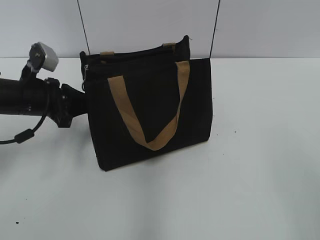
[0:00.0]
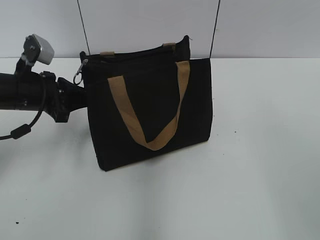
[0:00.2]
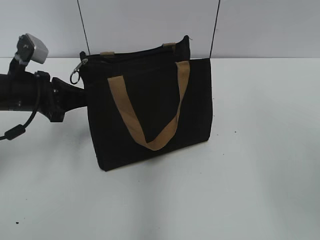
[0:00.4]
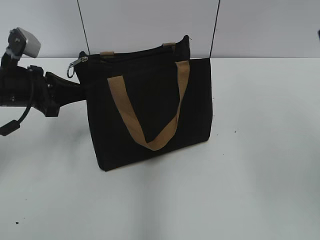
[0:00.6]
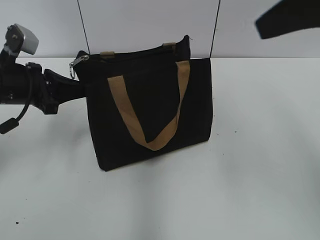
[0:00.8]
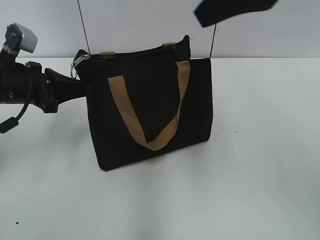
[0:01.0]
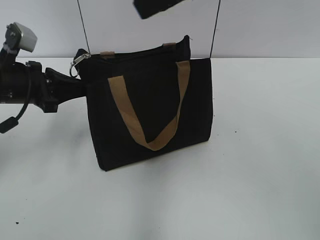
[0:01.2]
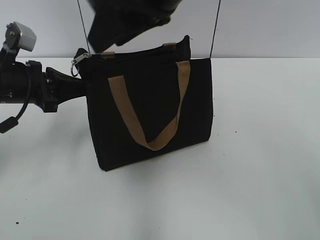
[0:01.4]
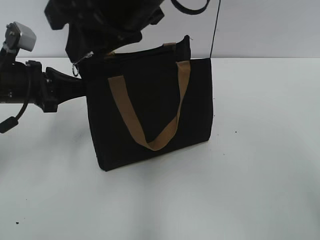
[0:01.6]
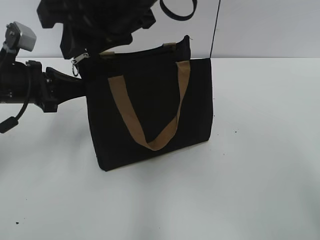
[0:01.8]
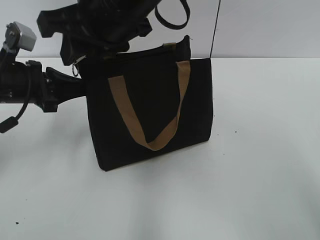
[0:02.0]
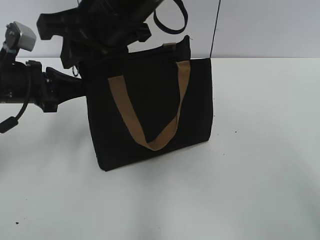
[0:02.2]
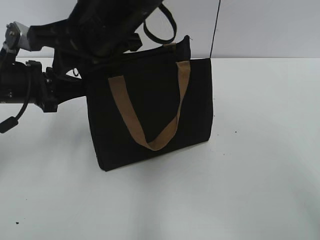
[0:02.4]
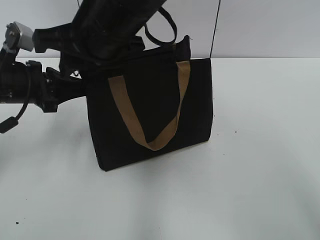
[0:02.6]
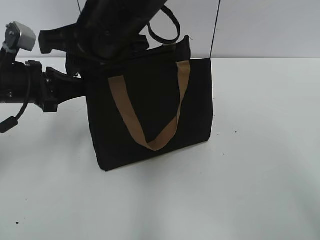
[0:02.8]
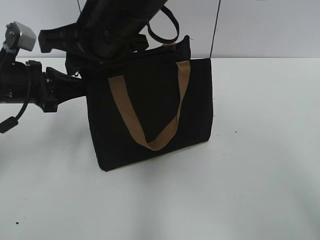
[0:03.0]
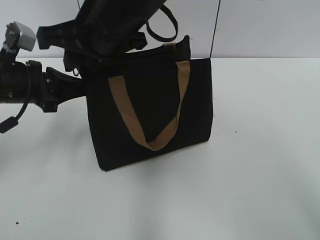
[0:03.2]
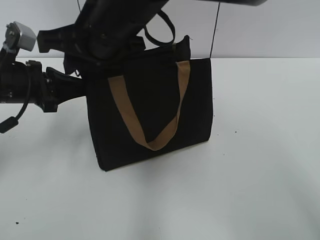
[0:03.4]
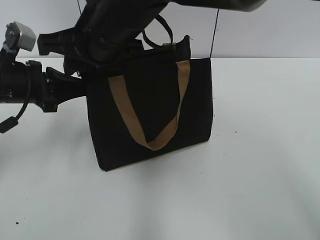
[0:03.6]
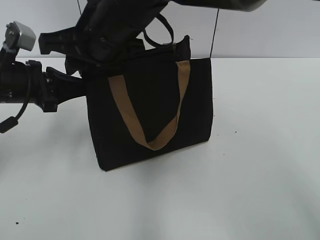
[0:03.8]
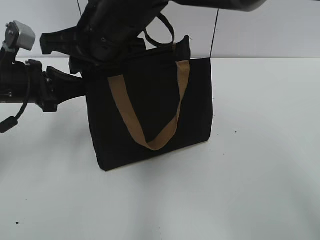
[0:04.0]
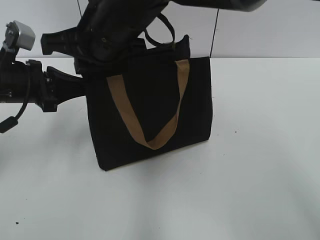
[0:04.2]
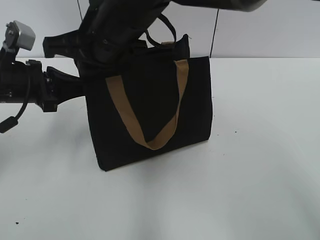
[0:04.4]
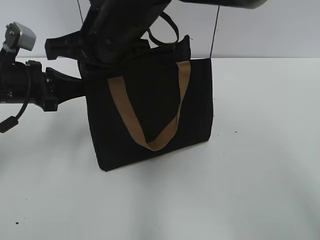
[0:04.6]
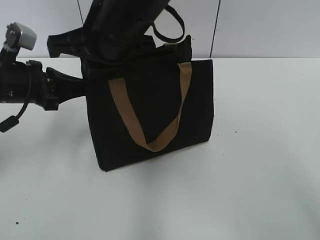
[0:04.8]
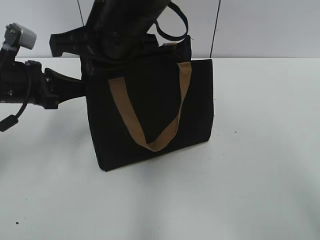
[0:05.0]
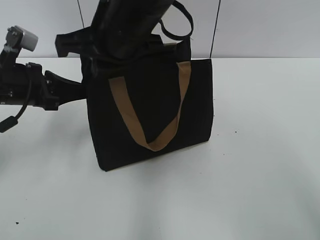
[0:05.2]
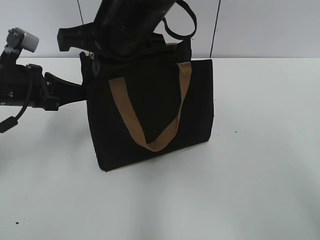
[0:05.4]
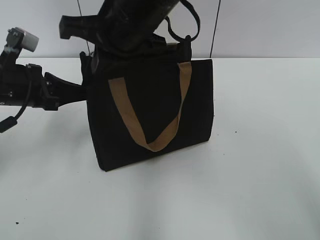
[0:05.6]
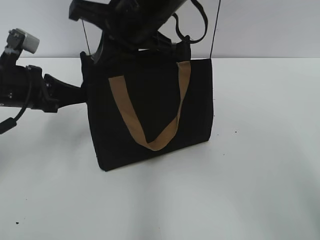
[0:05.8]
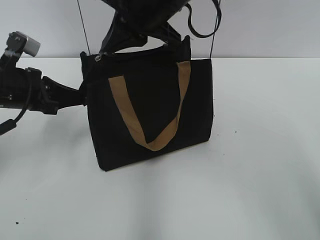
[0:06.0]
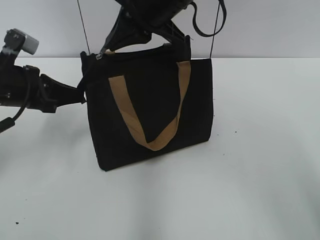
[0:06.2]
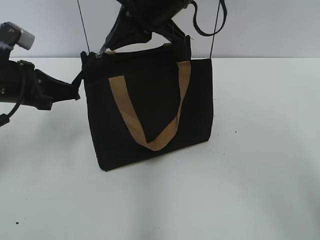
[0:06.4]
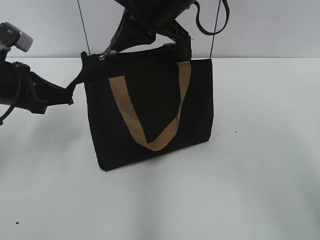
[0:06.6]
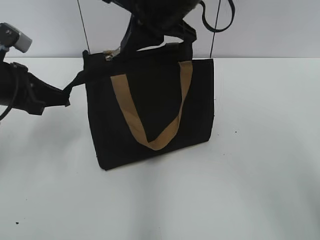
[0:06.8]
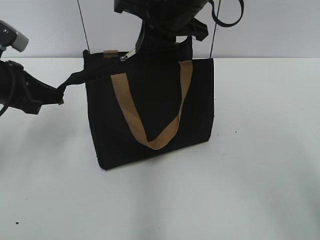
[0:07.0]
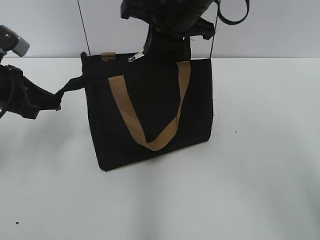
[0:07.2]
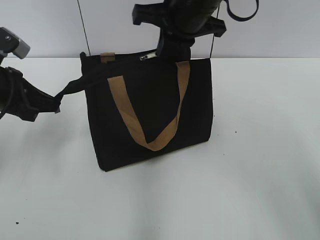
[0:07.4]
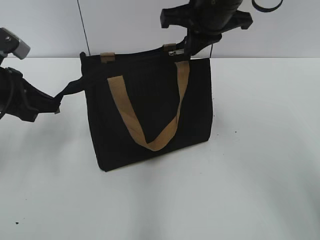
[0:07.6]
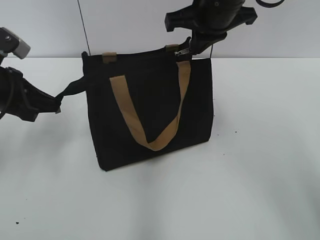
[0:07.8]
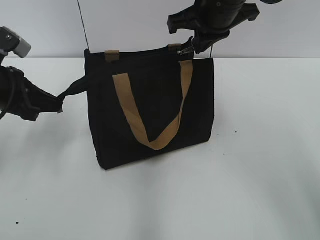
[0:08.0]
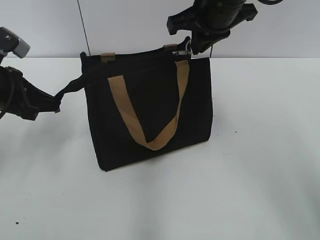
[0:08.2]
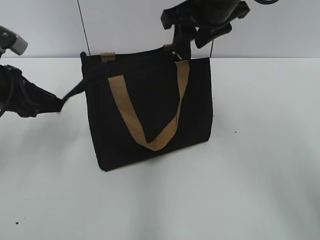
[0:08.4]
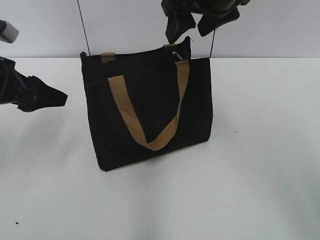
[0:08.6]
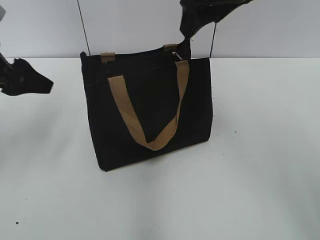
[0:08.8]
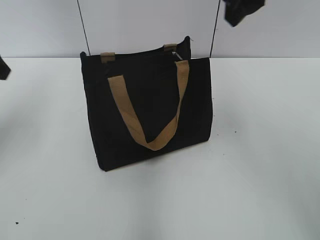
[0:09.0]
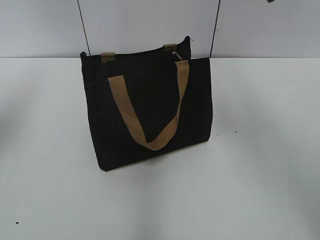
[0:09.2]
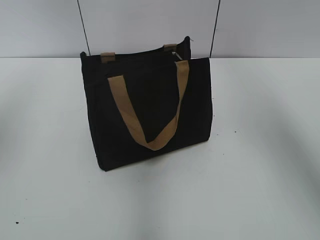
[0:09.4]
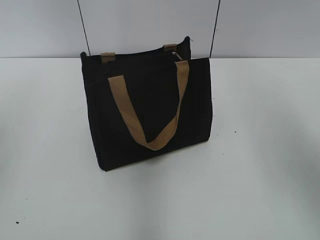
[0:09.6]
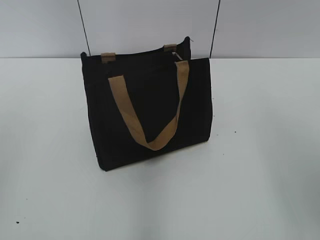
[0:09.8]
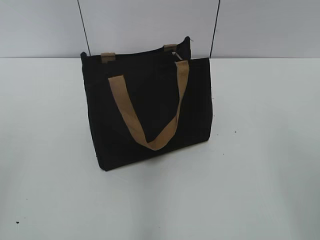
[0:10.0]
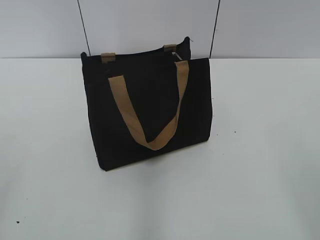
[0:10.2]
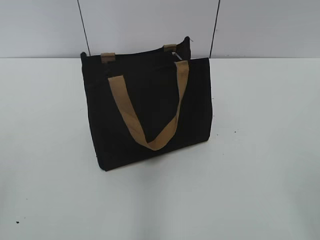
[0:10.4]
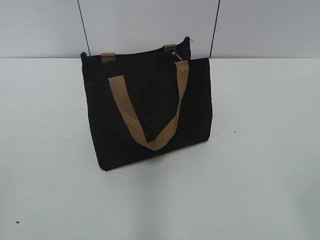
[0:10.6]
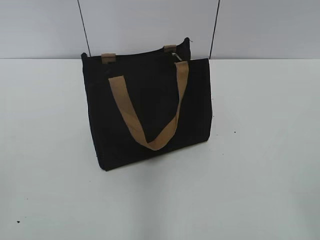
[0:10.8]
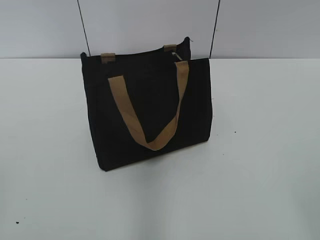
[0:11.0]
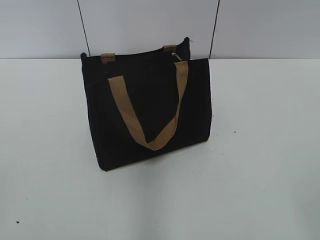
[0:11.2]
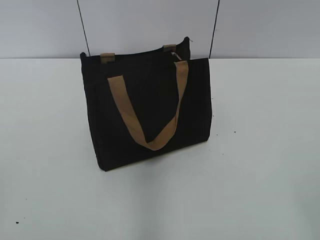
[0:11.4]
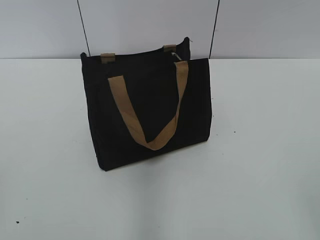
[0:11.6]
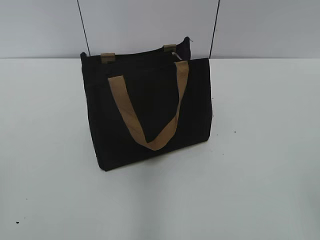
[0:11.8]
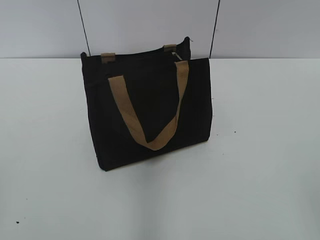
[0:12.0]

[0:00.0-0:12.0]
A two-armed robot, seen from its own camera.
Step, 0:00.0 to 0:08.2: Zip up the bag with your right hand.
0:00.0 to 0:01.6: The right gripper travels to the left and forward by approximately 40 cm.
0:01.6 to 0:03.0: The right gripper moves downward, about 5 cm.
0:03.0 to 0:04.4: The right gripper closes its fingers.
0:04.4 to 0:06.0: The right gripper heads to the right, covering some 5 cm.
0:06.0 to 0:07.6: The right gripper goes some 5 cm to the right.
0:07.6 to 0:09.0: The two grippers go some 10 cm upward. The left gripper opens. The right gripper opens.
0:09.0 to 0:10.4: The left gripper is displaced backward by some 30 cm. Meanwhile the right gripper is displaced backward and to the right by approximately 35 cm.

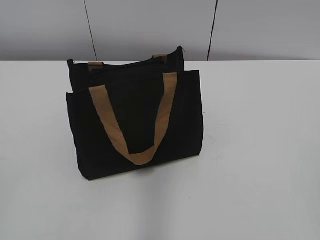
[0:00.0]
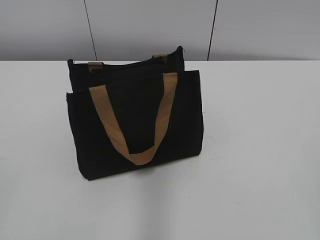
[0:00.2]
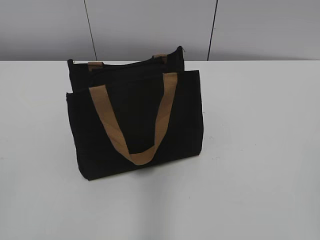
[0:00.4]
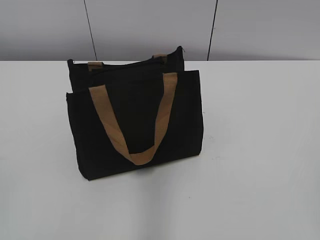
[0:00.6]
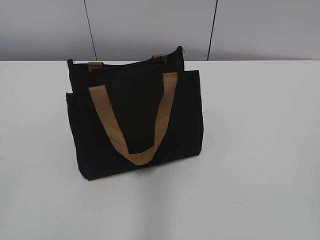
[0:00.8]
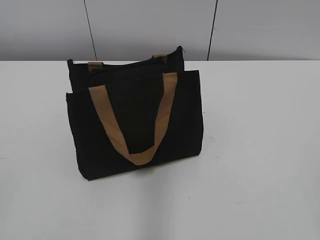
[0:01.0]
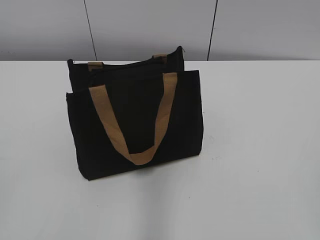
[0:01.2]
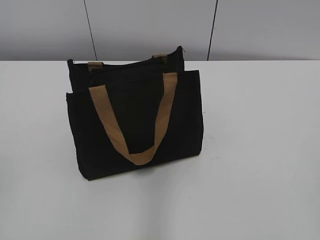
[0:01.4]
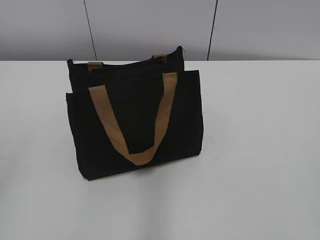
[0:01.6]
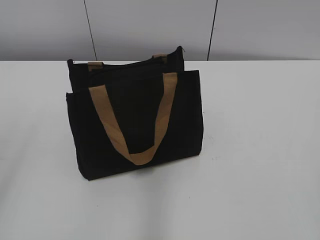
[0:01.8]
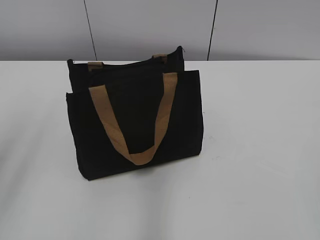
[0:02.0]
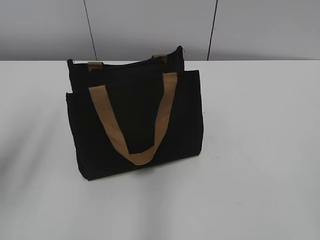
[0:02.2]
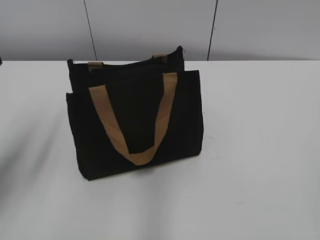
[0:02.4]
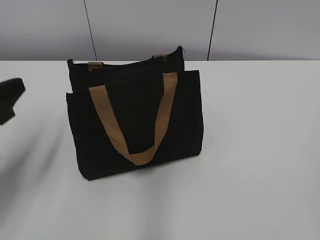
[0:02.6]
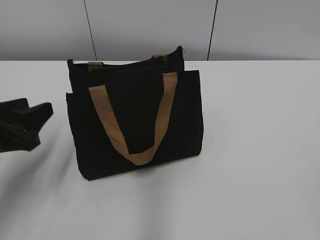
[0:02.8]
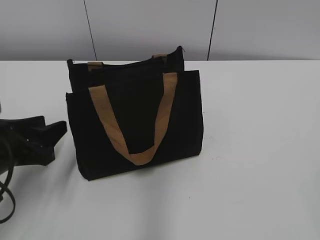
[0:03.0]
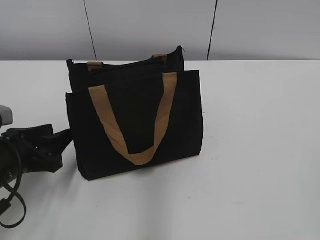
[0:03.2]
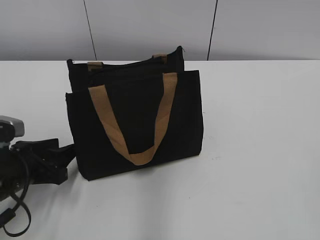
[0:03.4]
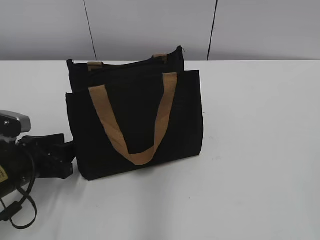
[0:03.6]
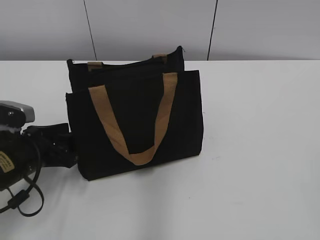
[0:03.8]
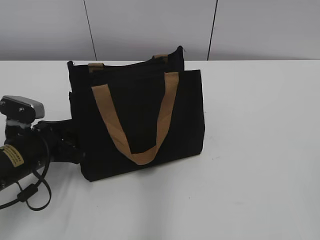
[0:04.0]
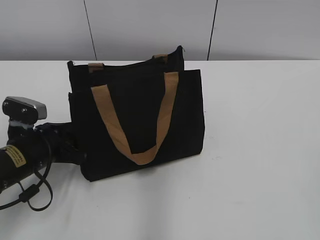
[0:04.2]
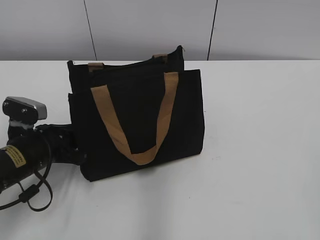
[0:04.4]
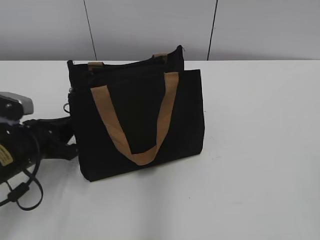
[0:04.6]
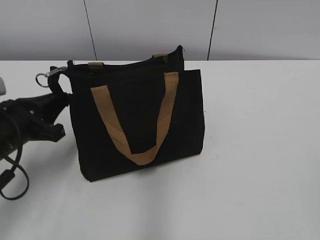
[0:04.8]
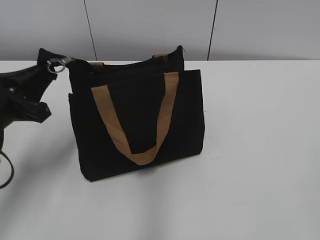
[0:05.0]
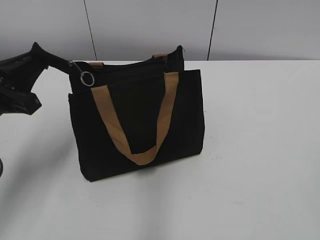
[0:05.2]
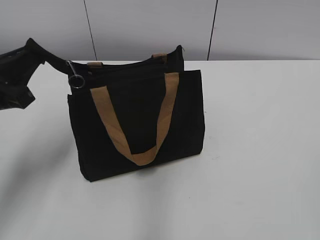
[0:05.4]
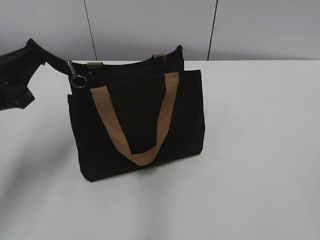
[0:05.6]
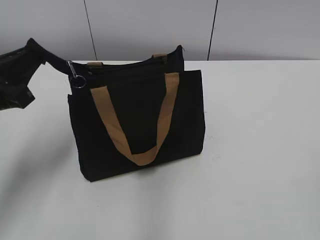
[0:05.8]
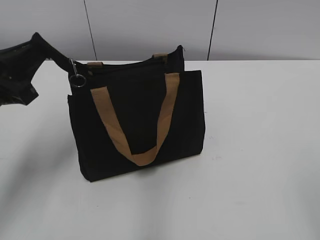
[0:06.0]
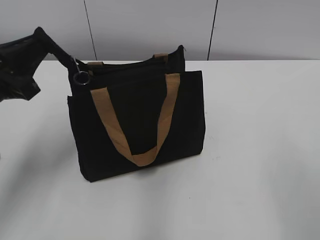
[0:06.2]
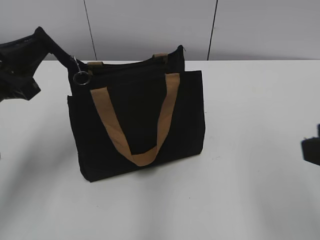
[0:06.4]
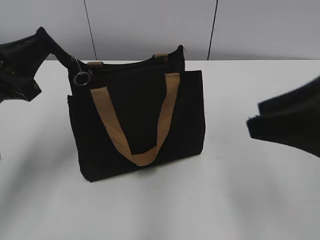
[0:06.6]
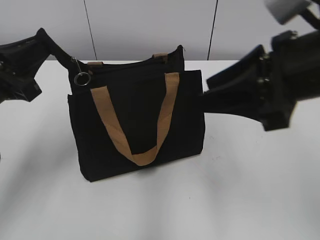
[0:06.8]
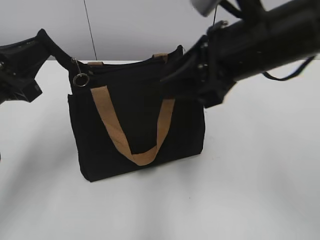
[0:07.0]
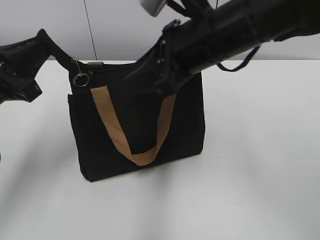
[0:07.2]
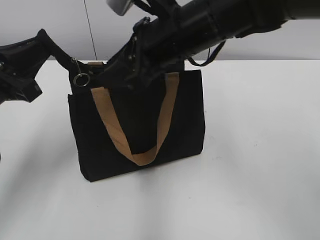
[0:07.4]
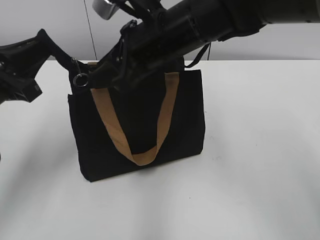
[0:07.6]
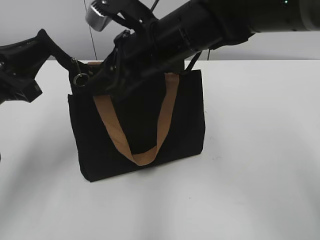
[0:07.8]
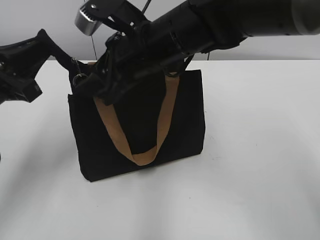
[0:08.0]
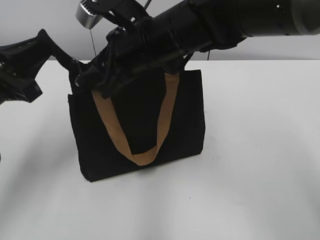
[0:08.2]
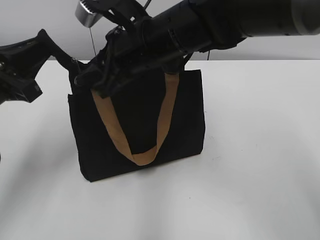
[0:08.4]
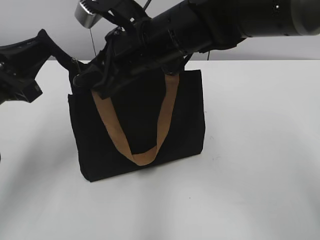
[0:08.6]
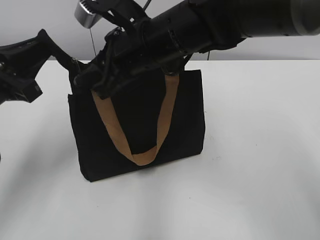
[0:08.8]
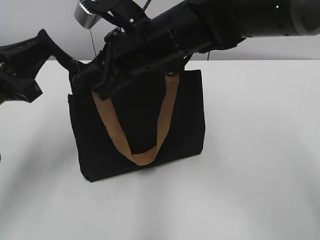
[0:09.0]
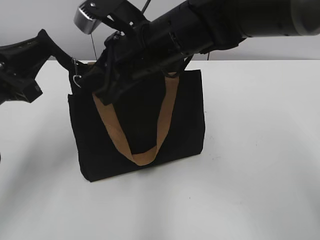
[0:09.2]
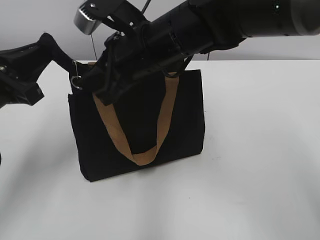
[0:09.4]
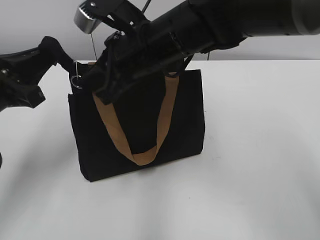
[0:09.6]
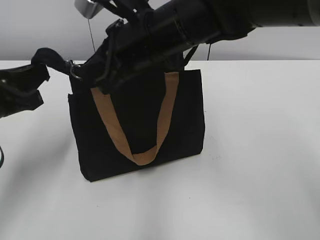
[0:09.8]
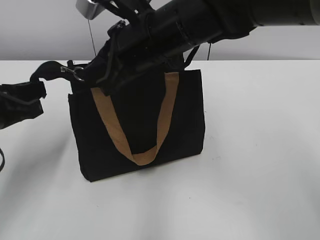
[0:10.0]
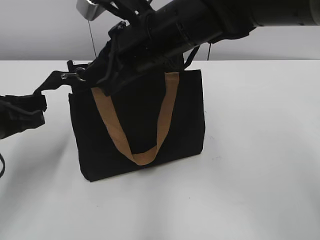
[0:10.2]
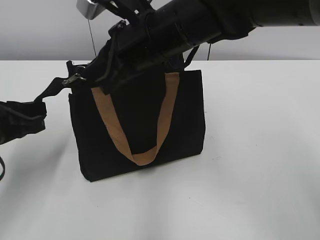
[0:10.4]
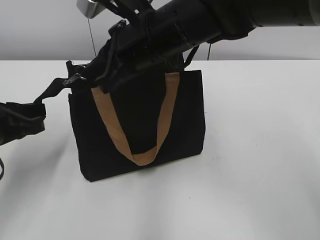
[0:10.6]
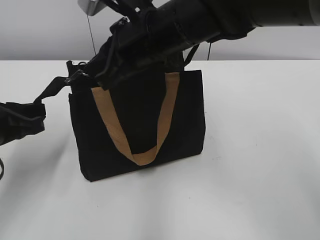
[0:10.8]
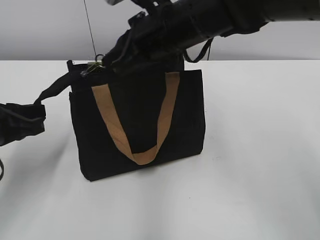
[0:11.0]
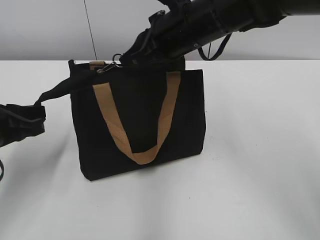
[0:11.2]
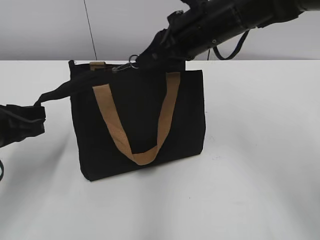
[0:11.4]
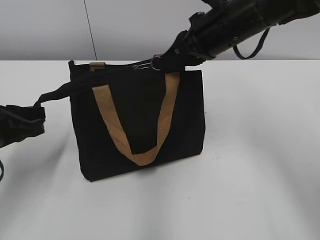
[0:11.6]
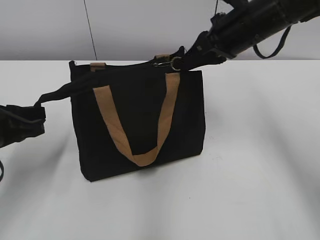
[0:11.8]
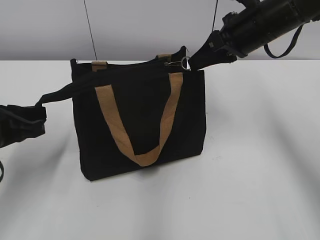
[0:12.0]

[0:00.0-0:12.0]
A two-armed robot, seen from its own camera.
0:01.6 to 0:03.0: The left gripper shifts about 25 cm downward and forward.
0:03.0 to 0:04.4: The left gripper shifts roughly 5 cm downward, and closes.
0:04.4 to 0:06.0: The left gripper moves upward, about 15 cm.
0:06.0 to 0:07.6: The right gripper moves forward and to the left, approximately 40 cm.
0:07.6 to 0:09.0: The right gripper closes its fingers.
0:09.0 to 0:10.4: The right gripper closes its fingers. Meanwhile the left gripper shifts by approximately 5 cm.
0:10.4 to 0:12.0: The right gripper heads to the right, covering roughly 15 cm.
